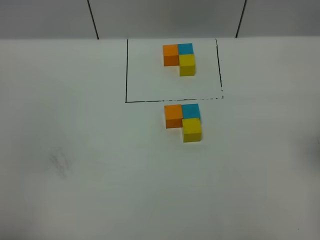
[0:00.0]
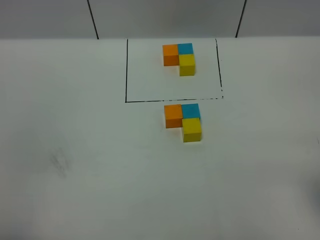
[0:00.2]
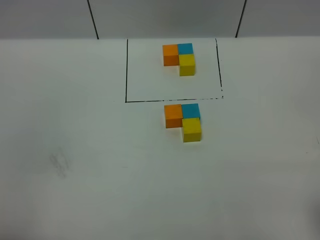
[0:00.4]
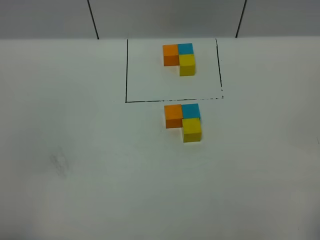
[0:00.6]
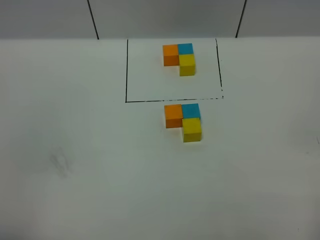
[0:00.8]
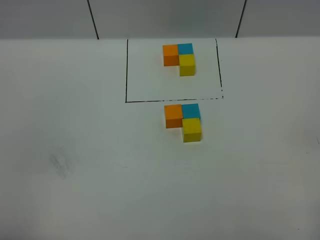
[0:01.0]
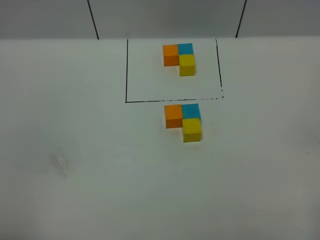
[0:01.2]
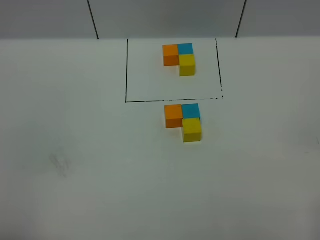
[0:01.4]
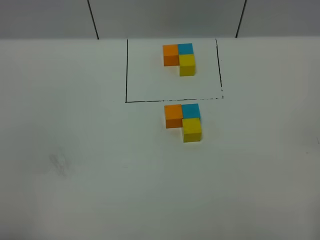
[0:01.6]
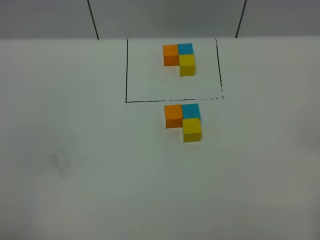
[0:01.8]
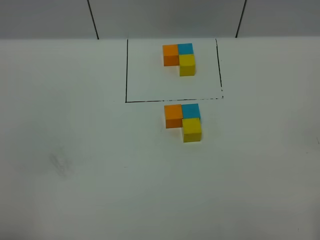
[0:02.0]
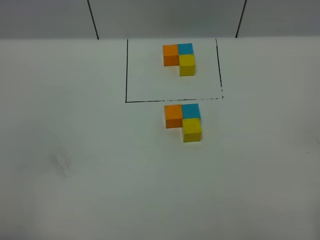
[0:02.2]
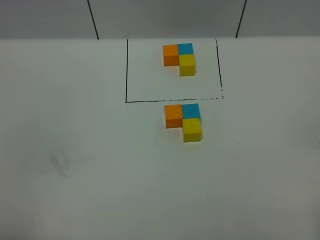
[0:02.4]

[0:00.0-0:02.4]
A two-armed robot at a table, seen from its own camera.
Task of the whole recording: According to the building block template in front, assemble the scattered blocks together.
0:01.2 to 0:02.4: Both grippers stay put.

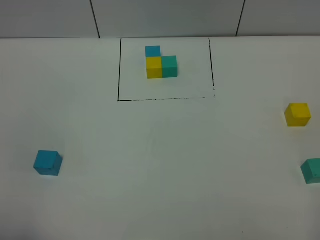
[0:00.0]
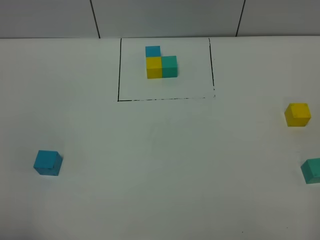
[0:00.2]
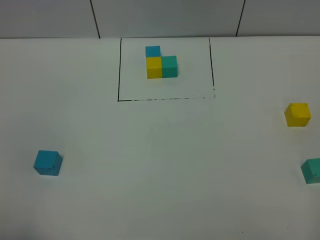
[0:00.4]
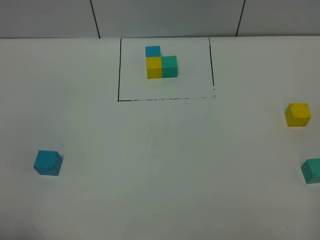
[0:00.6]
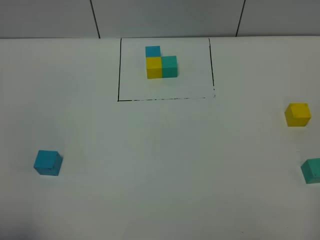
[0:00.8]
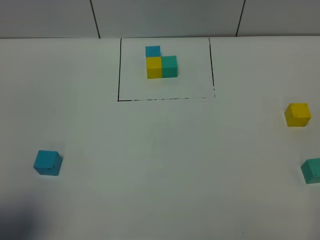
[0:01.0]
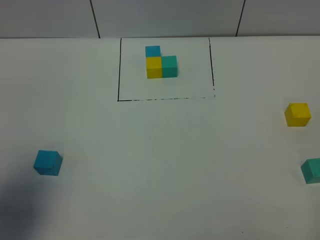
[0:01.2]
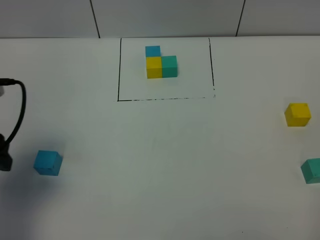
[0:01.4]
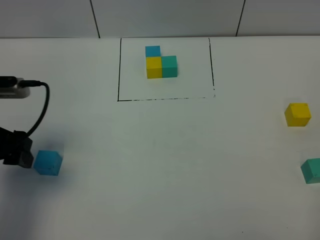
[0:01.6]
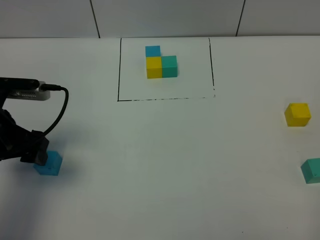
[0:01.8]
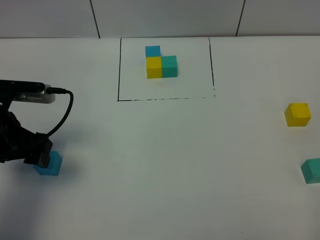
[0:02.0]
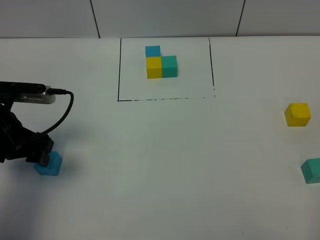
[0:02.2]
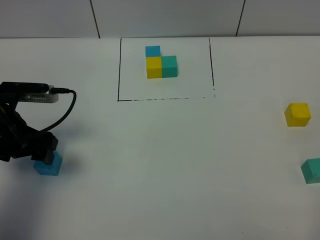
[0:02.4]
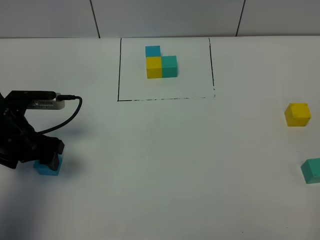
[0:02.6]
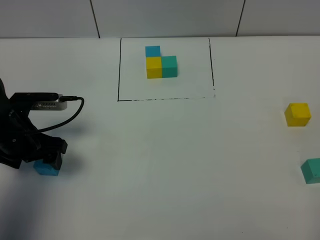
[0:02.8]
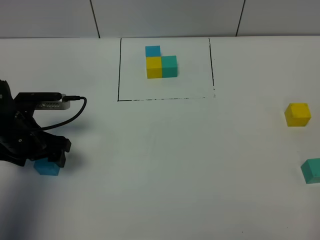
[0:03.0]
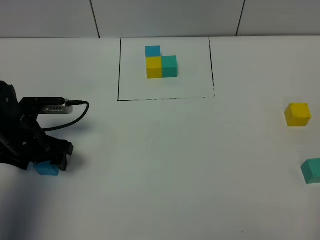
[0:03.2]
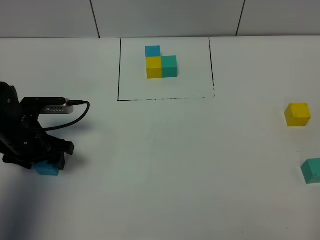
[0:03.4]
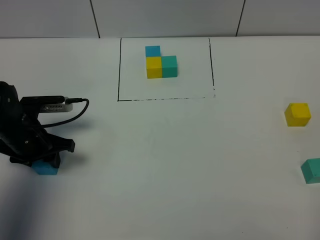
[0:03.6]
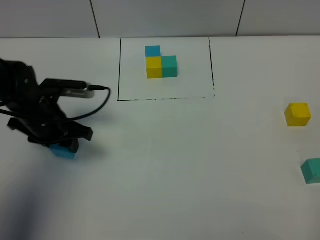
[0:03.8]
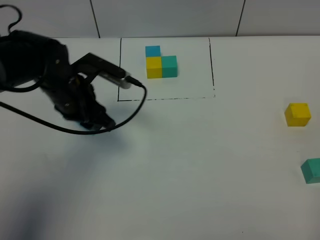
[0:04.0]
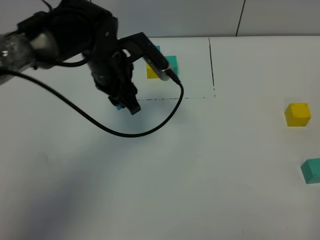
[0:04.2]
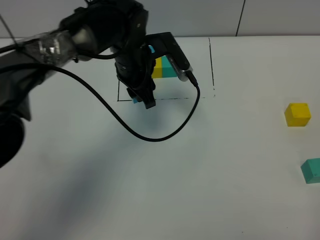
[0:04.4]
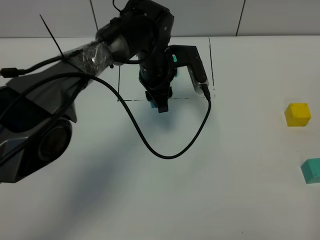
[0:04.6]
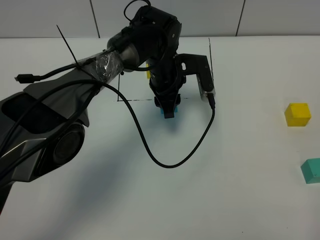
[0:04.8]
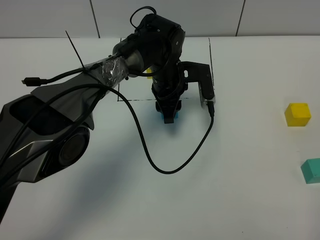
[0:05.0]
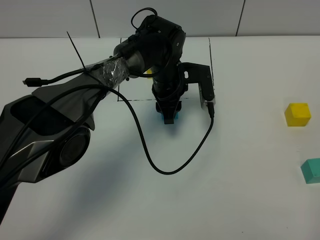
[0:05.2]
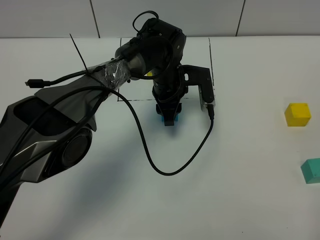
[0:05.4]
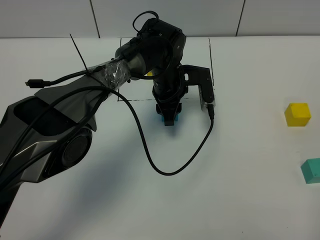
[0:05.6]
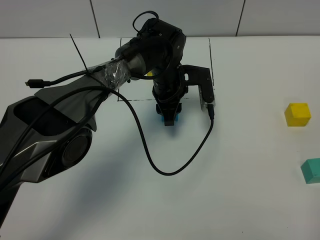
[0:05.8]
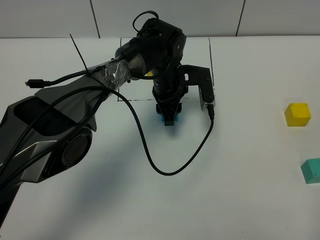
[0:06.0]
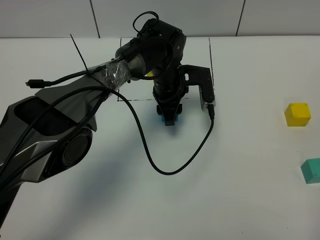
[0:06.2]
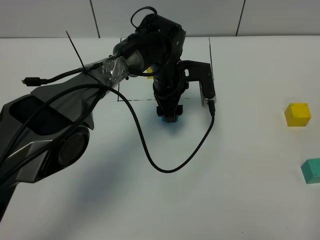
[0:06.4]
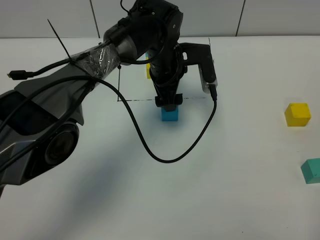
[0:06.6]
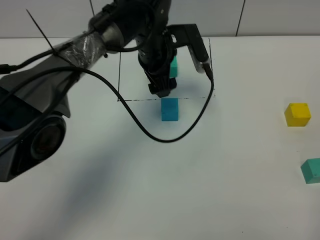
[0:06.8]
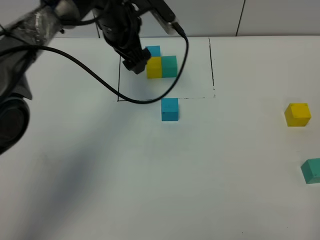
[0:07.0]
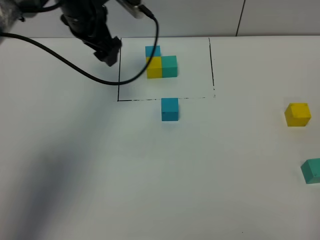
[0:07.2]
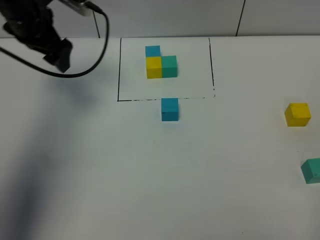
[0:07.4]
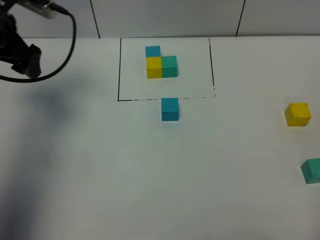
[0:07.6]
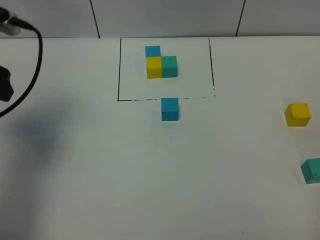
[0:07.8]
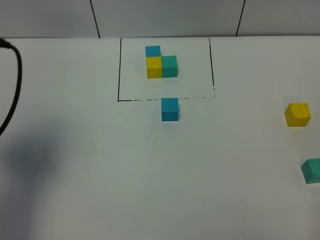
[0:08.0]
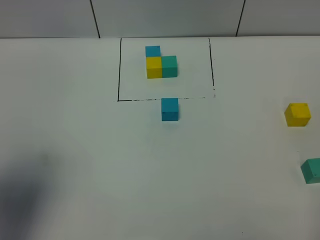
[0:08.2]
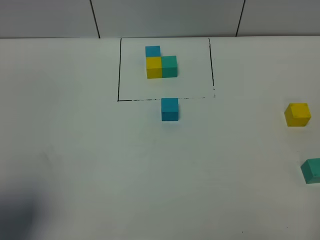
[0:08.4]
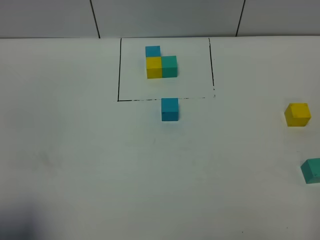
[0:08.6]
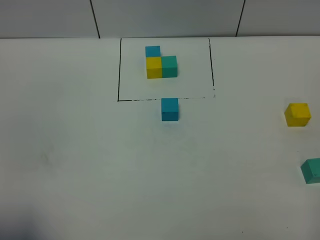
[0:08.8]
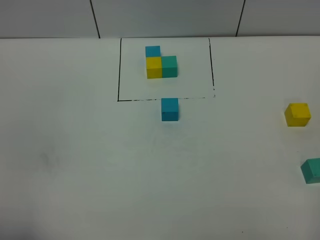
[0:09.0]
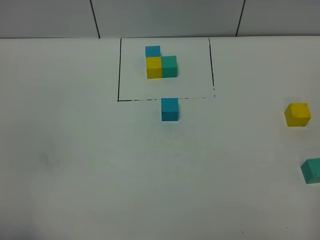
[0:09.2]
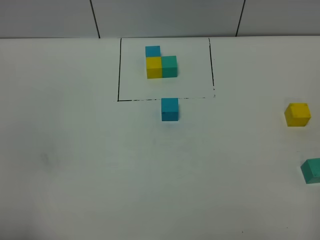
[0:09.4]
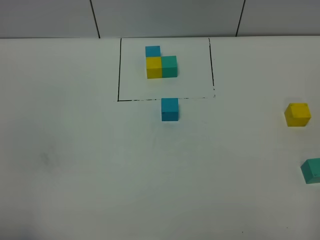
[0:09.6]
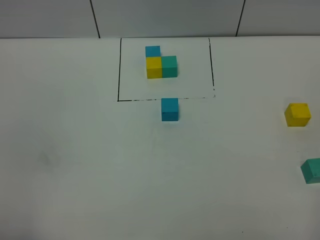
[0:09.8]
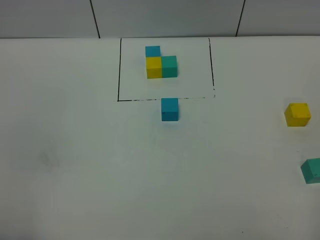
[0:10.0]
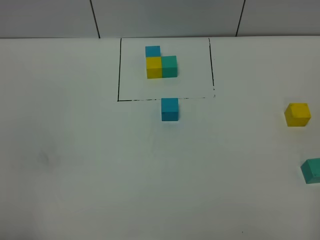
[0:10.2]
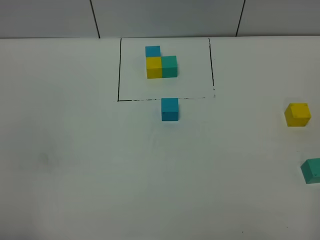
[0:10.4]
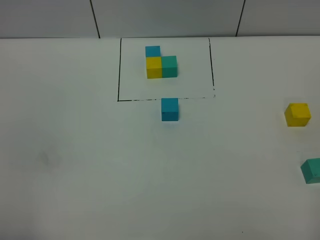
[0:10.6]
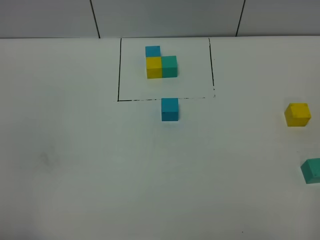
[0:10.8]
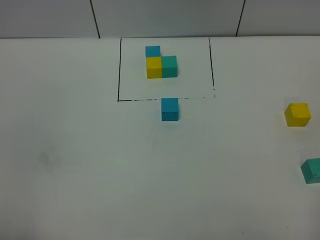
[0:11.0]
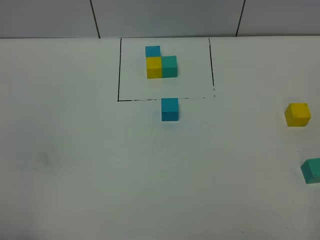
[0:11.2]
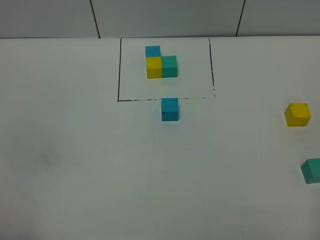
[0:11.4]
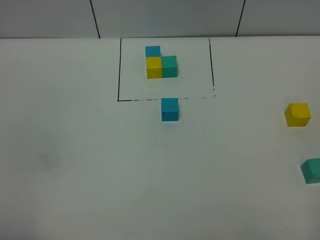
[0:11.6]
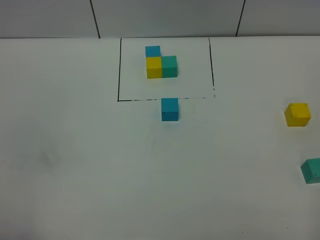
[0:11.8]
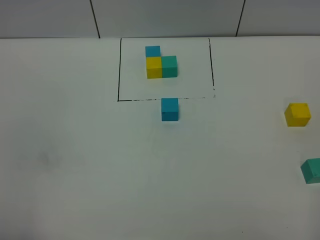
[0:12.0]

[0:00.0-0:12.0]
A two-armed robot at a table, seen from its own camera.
Task of the whole recording: According to the building block template in front, assemble the scattered blocks together.
Step, 0:00.0 to 0:06.2: Put the blue build block in the center of the table.
0:00.0 to 0:01.6: The left gripper moves forward, about 25 cm.
0:01.6 to 0:03.0: The left gripper heads downward and forward, covering roughly 10 cm.
0:03.0 to 0:04.4: The left gripper moves to the right and forward, some 25 cm, and closes.
0:04.4 to 0:06.0: The left gripper travels downward and to the right by some 10 cm.
0:06.0 to 0:07.6: The left gripper shifts approximately 35 cm to the left and upward, and opens its fingers.
0:07.6 to 0:09.0: The left gripper moves backward, some 35 cm.
0:10.4 to 0:12.0: Both grippers stay put.

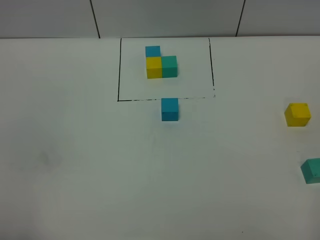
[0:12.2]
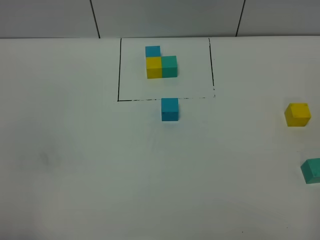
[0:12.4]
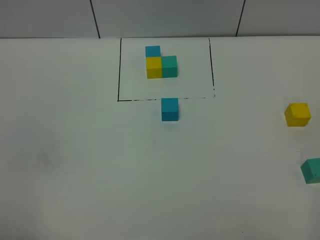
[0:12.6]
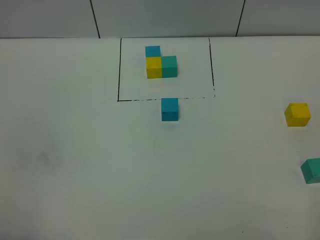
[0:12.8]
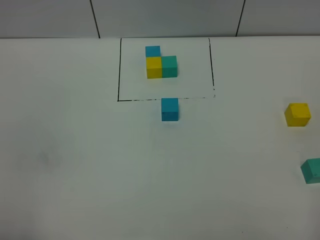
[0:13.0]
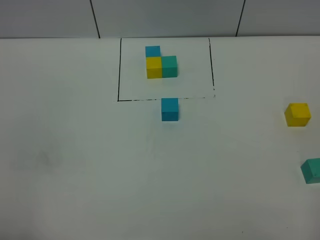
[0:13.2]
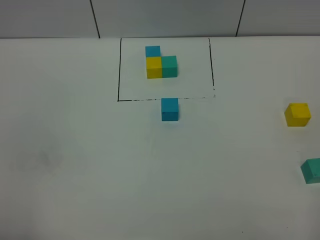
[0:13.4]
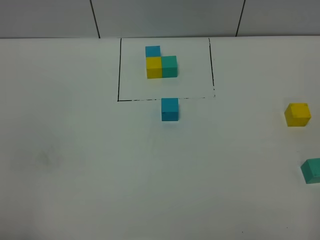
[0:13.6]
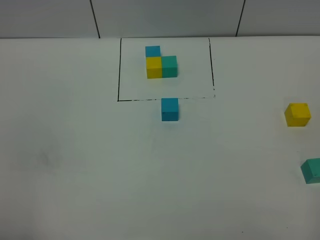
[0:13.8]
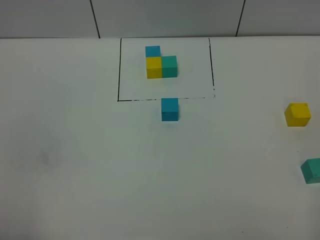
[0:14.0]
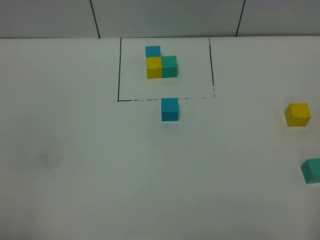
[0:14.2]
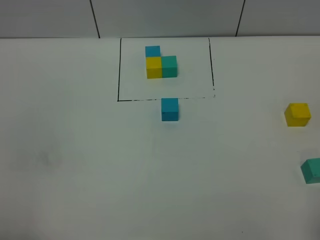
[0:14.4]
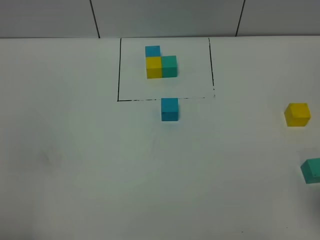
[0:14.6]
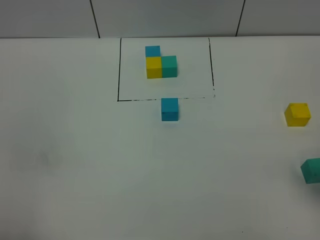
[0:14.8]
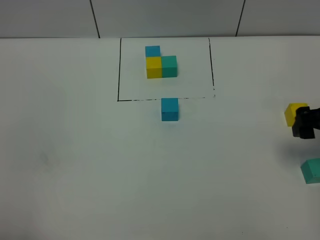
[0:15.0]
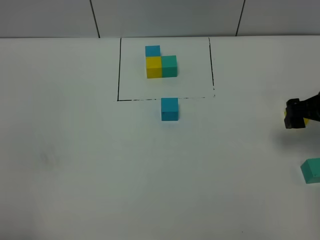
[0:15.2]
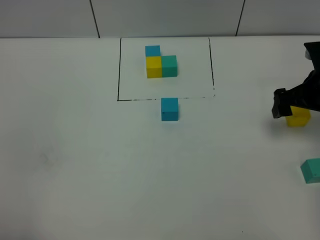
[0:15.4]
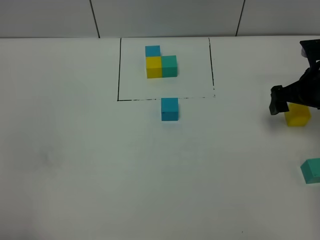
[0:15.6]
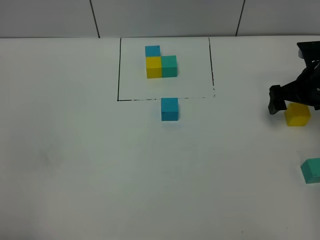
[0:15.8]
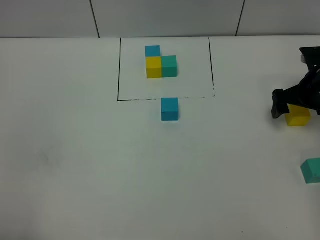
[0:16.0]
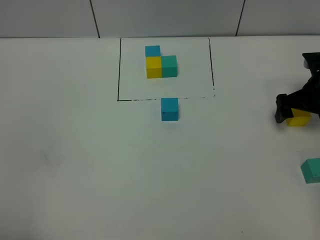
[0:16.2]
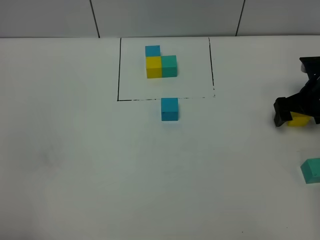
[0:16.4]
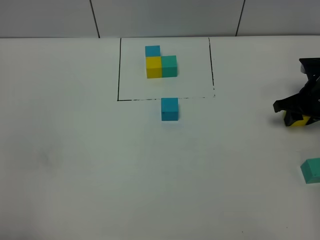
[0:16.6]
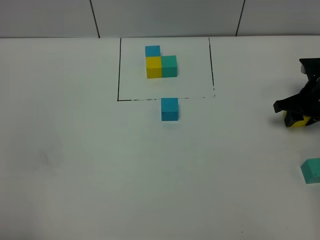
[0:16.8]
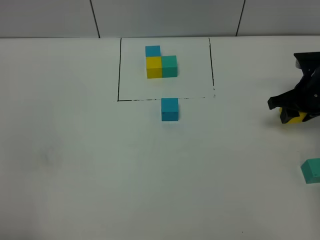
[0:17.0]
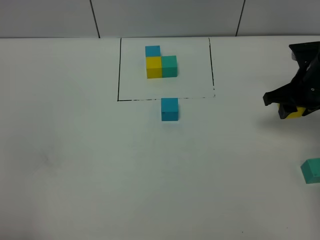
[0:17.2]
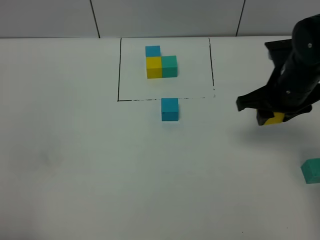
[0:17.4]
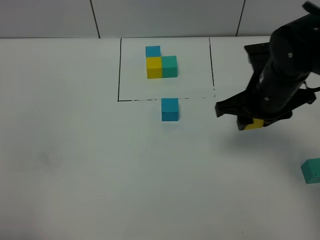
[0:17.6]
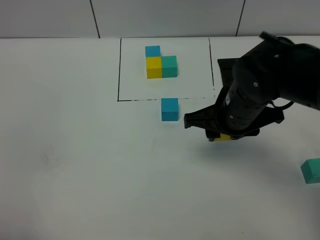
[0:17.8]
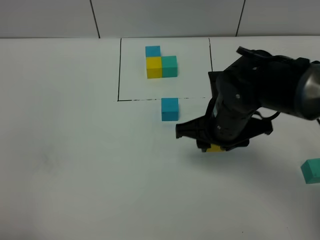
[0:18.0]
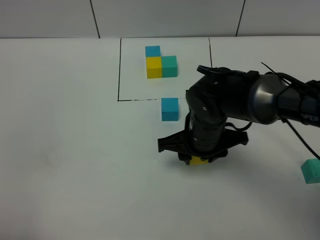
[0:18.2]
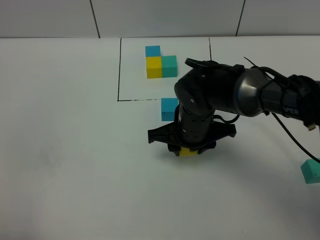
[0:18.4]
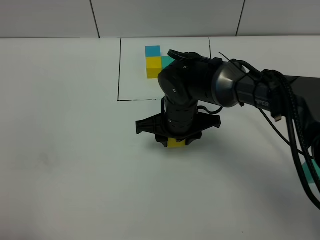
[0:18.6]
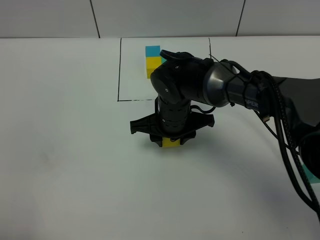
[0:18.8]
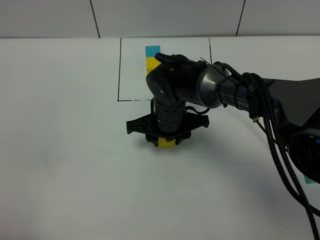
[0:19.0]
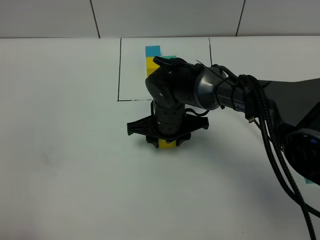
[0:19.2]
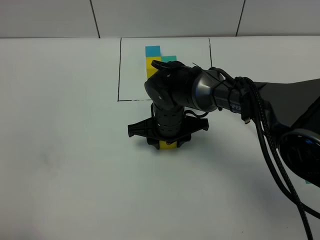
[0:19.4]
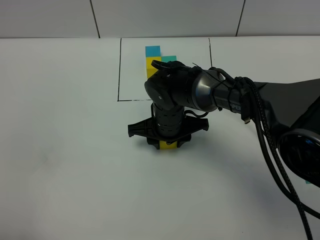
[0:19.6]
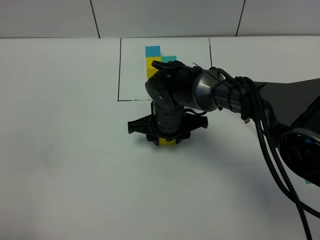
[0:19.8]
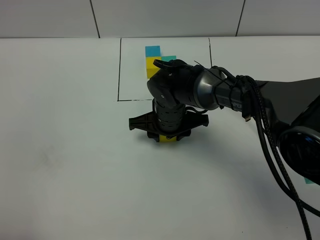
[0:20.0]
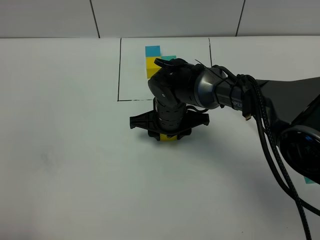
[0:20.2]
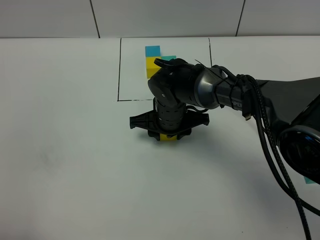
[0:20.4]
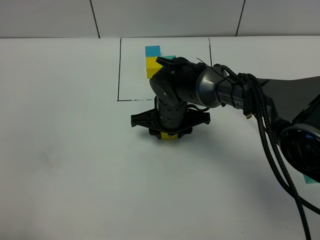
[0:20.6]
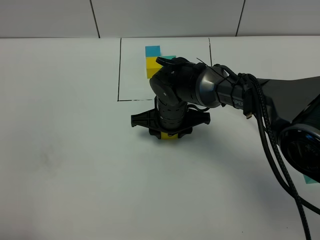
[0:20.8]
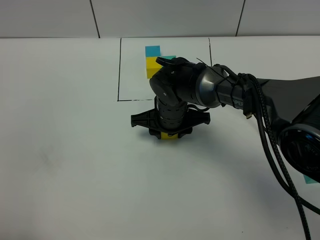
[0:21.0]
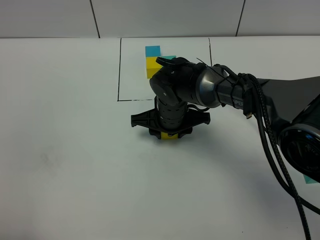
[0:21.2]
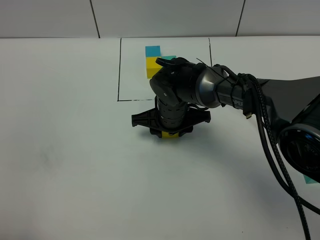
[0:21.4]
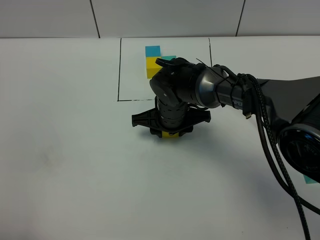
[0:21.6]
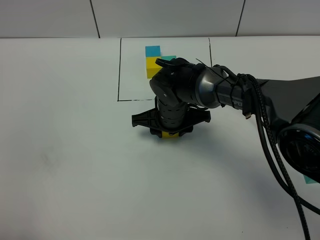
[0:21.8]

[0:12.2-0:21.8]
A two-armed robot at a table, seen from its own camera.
Task of the whole recording: According to the building block template in front, assemble the scattered blocks together.
0:12.2 to 0:13.8: Neither gripper changes place.
0:13.8 to 0:15.4: The right gripper heads forward, covering roughly 35 cm, and opens.
0:15.4 to 0:17.0: The right gripper closes its fingers.
0:17.0 to 0:18.6: The right gripper heads to the left, covering roughly 25 cm.
0:18.6 to 0:20.2: There are only small adjustments of the grippers.
0:20.2 to 0:21.8: Both grippers stay about where they are.
